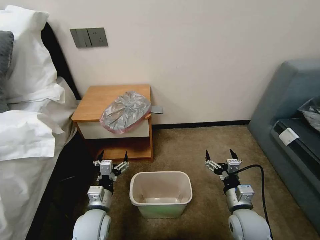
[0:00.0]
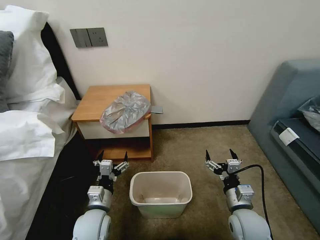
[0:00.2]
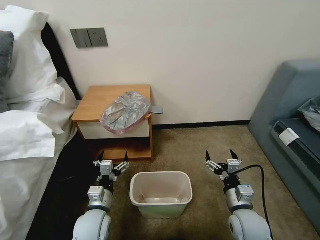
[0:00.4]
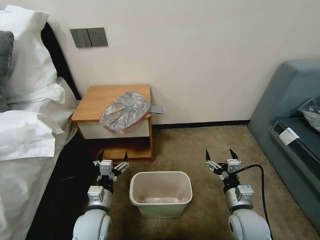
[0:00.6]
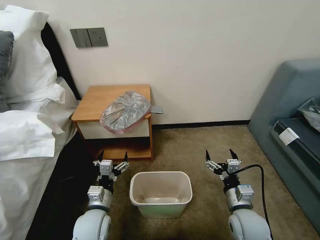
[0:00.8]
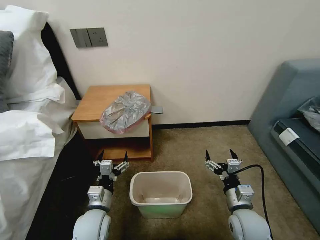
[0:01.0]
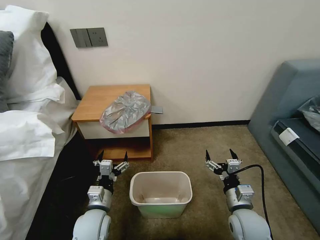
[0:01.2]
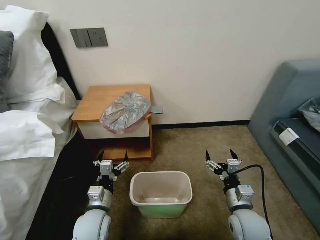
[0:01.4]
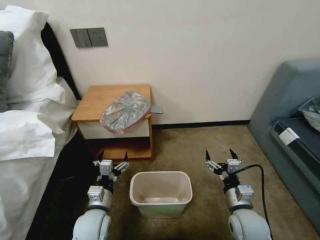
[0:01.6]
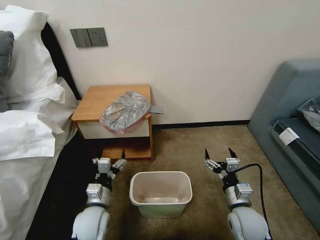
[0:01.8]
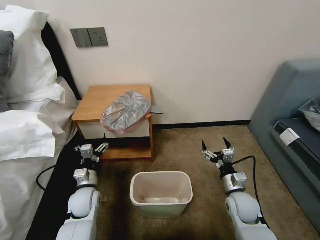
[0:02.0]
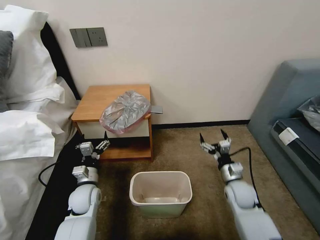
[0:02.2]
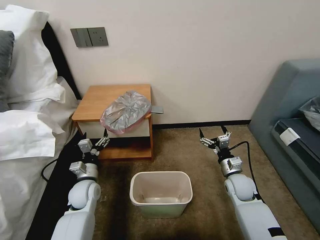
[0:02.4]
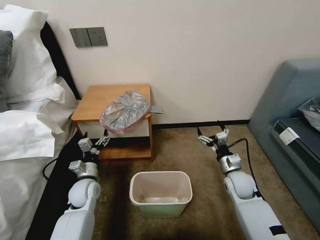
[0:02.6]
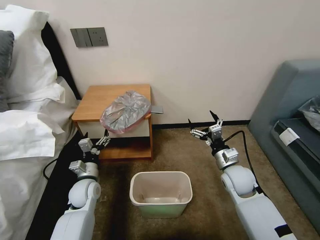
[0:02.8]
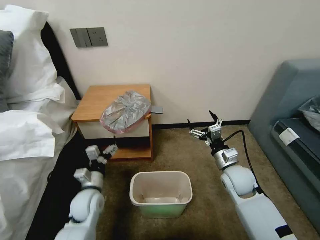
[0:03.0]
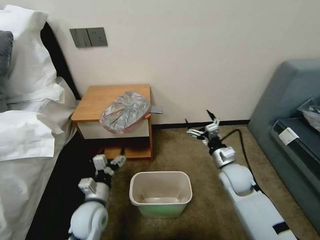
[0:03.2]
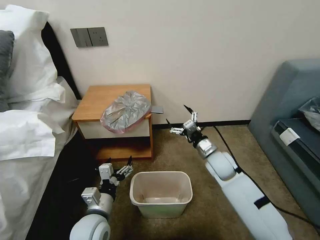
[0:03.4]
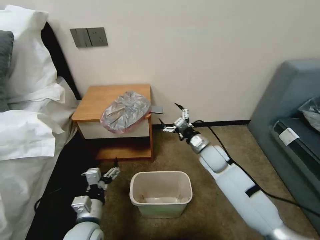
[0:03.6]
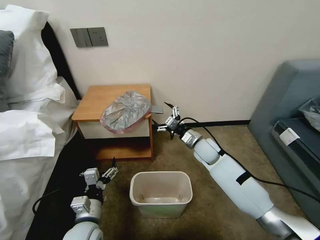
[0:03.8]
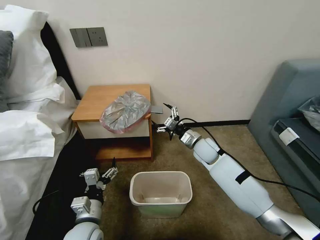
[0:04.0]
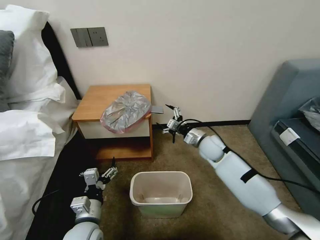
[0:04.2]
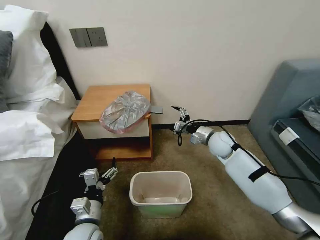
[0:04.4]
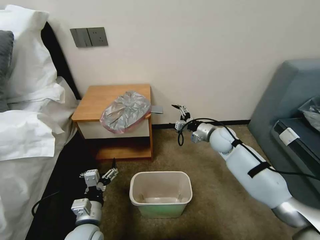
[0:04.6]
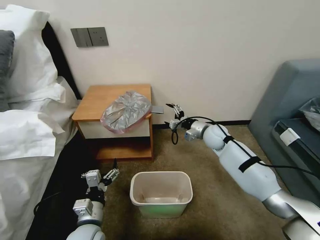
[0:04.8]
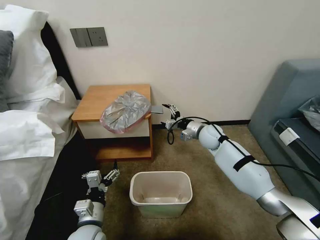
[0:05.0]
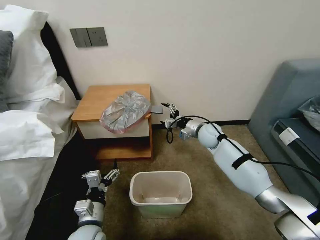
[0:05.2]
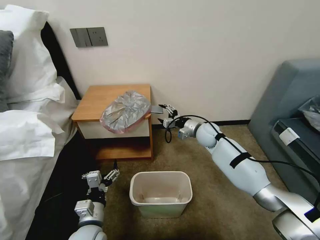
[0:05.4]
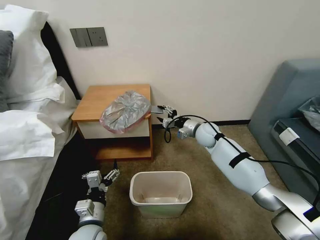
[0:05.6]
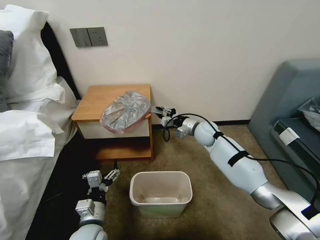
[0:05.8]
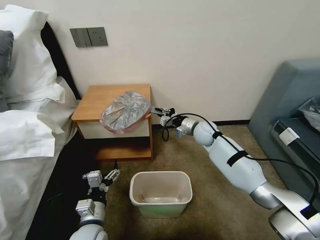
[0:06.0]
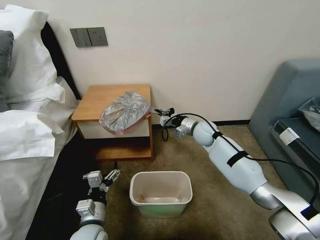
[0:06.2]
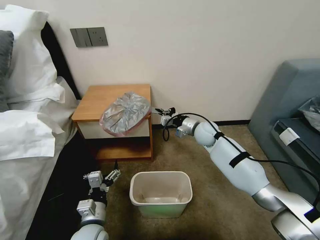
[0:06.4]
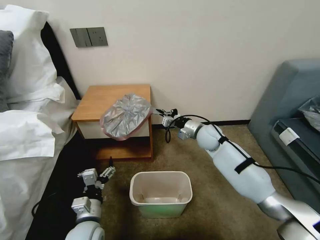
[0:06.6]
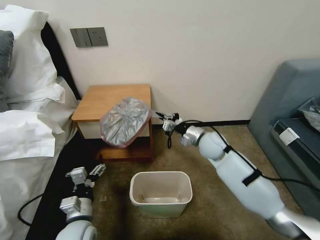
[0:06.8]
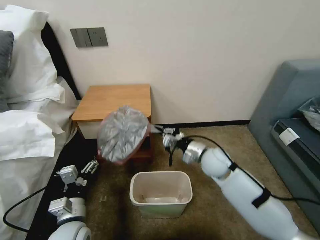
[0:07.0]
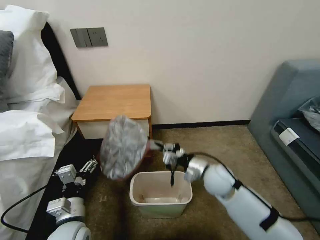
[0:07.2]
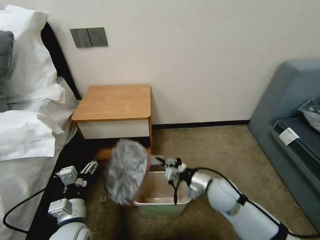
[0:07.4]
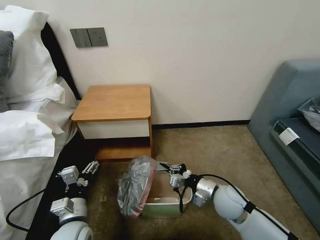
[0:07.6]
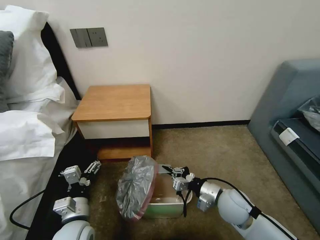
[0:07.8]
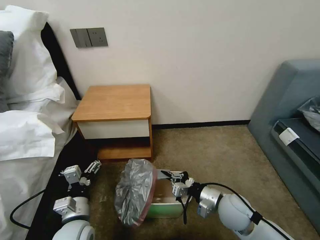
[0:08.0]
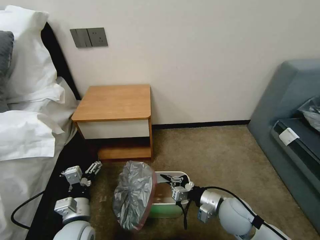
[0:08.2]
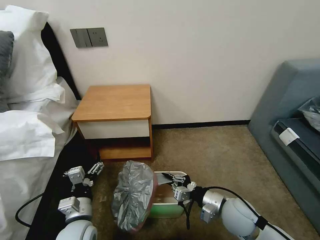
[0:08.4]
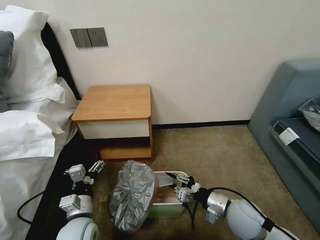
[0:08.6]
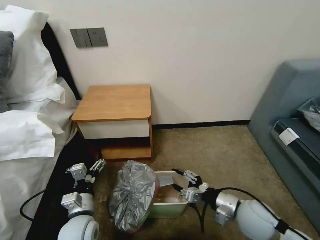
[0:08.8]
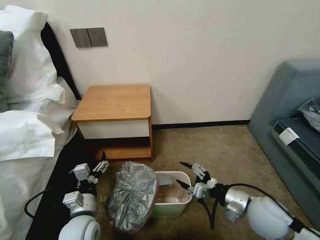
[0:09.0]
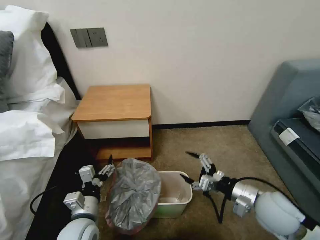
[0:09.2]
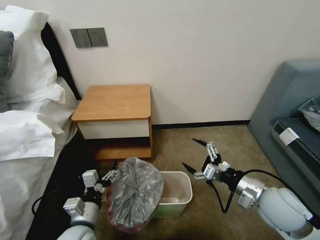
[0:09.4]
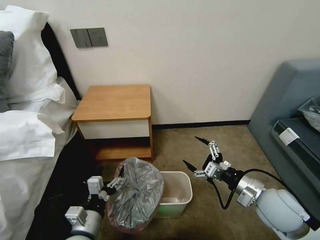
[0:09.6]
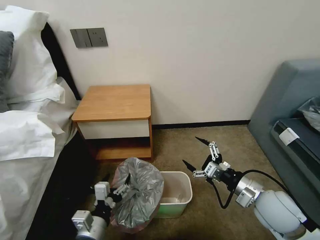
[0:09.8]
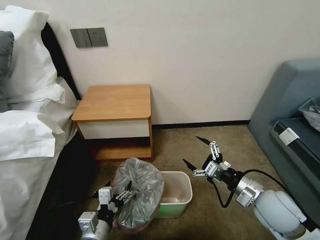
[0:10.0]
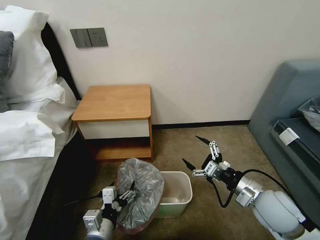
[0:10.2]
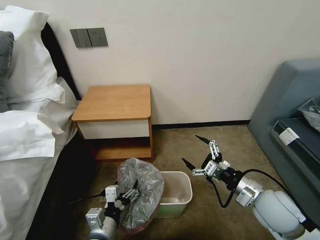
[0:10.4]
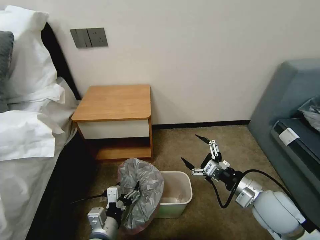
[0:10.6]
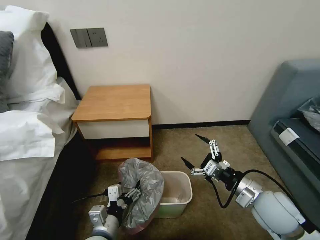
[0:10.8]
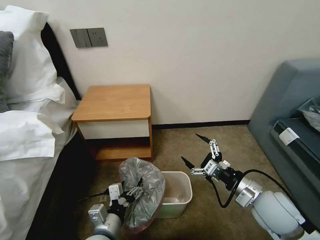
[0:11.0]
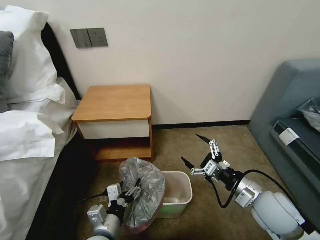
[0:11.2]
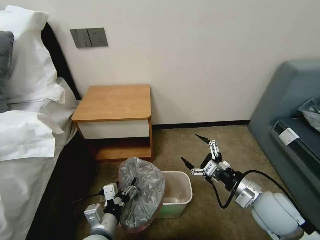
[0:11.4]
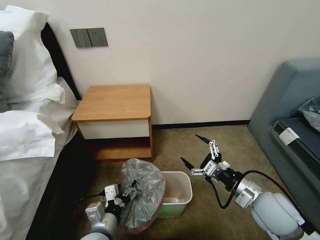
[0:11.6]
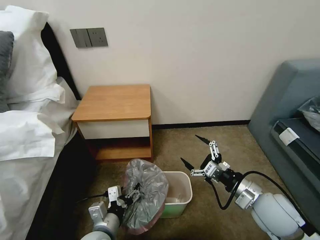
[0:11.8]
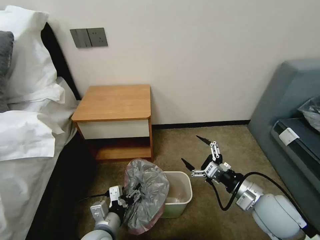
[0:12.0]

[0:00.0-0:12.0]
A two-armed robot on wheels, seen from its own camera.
Task of the whole recording: Pick up the garbage bag from the table and place it over the trash can.
0:01.6 to 0:03.0: The left gripper shifts some 5 cm forward. The right gripper travels forward by roughly 15 cm.
0:03.0 to 0:04.4: The right gripper is displaced forward by approximately 15 cm, while the left gripper shifts some 10 cm backward.
0:04.4 to 0:06.0: The right gripper moves forward and to the left, some 5 cm, and closes up.
0:06.0 to 0:07.6: The right gripper is displaced backward by roughly 25 cm.
0:07.6 to 0:09.0: The right gripper travels to the right and backward by approximately 10 cm, and opens its fingers.
0:09.0 to 0:10.4: The left gripper is displaced backward and to the right by some 10 cm.
0:10.4 to 0:12.0: The grippers make only small movements.

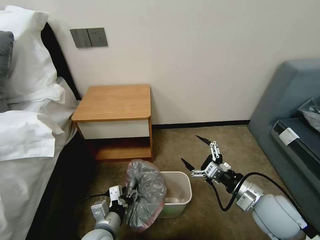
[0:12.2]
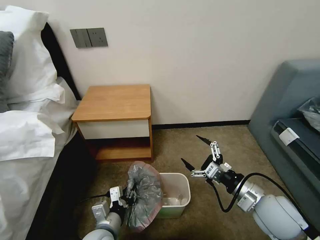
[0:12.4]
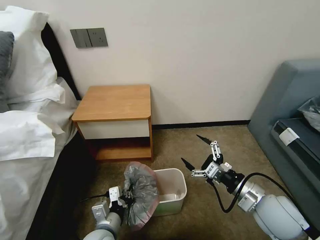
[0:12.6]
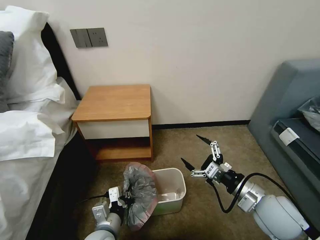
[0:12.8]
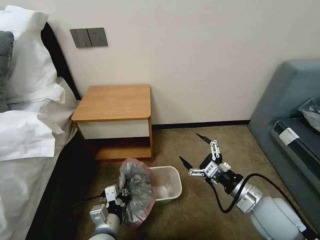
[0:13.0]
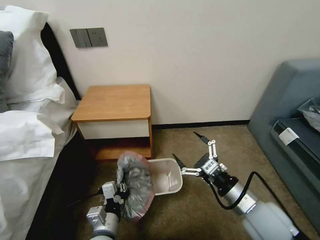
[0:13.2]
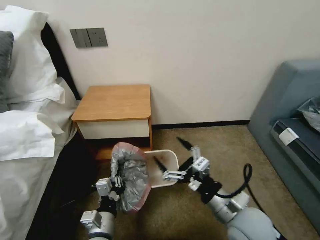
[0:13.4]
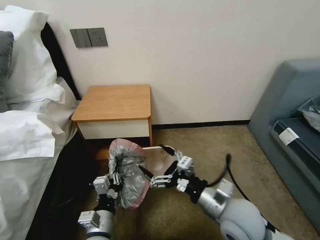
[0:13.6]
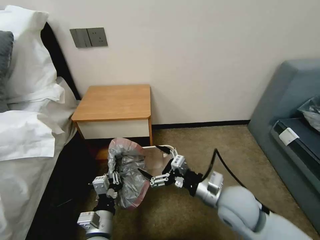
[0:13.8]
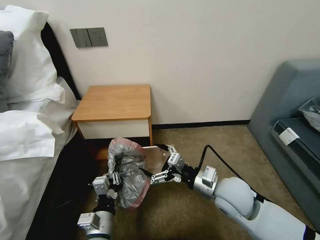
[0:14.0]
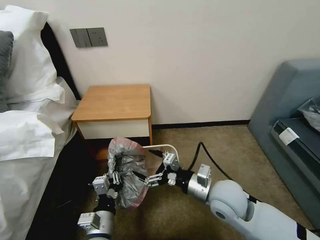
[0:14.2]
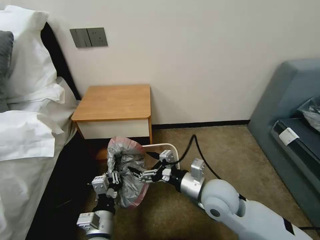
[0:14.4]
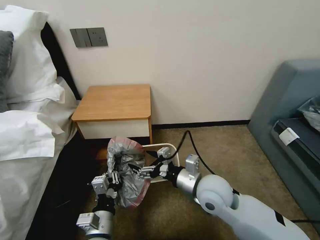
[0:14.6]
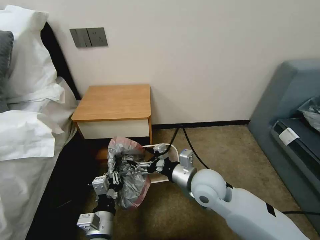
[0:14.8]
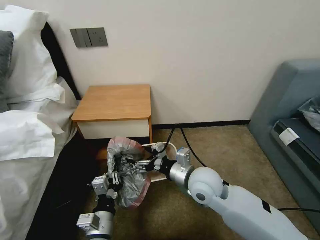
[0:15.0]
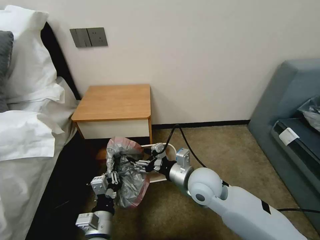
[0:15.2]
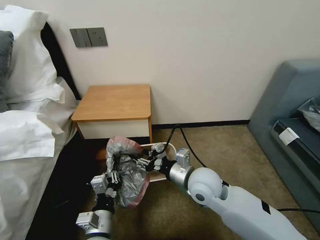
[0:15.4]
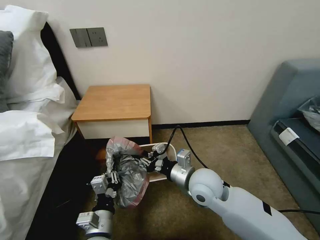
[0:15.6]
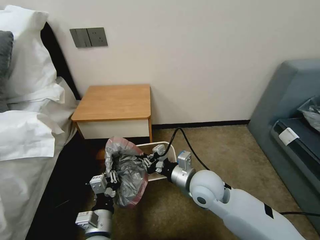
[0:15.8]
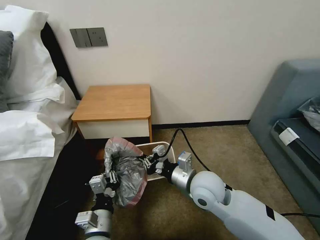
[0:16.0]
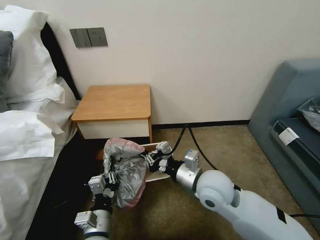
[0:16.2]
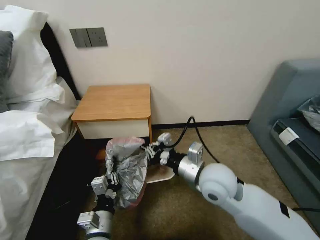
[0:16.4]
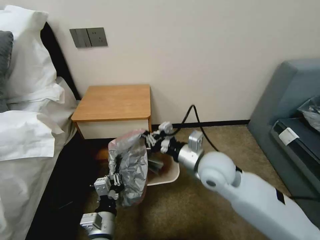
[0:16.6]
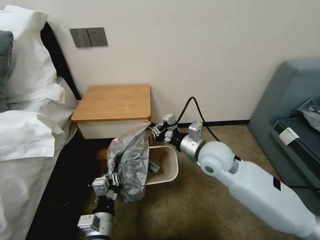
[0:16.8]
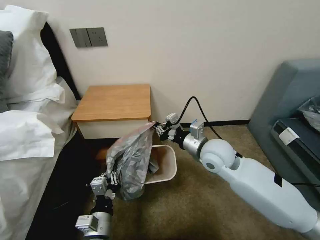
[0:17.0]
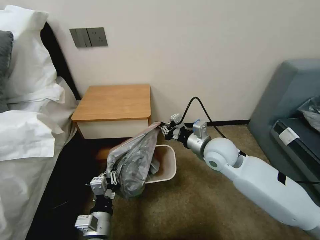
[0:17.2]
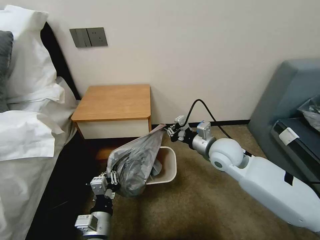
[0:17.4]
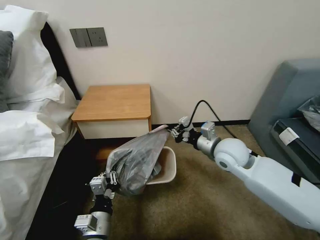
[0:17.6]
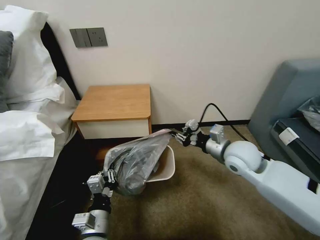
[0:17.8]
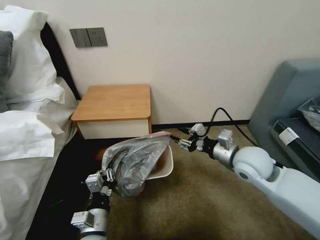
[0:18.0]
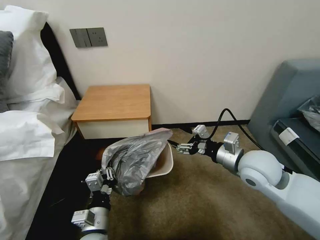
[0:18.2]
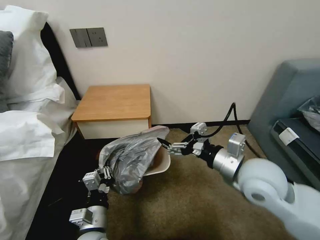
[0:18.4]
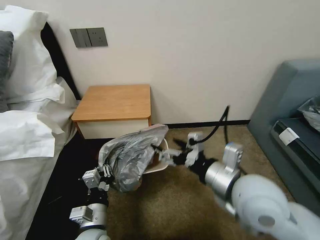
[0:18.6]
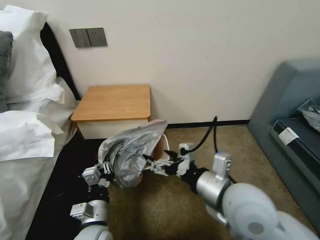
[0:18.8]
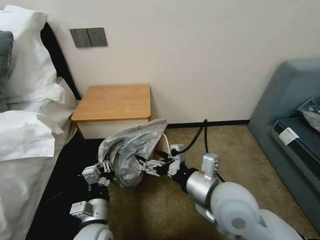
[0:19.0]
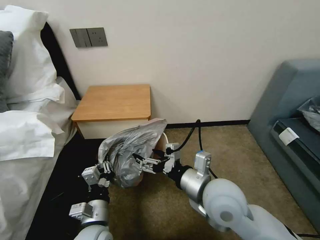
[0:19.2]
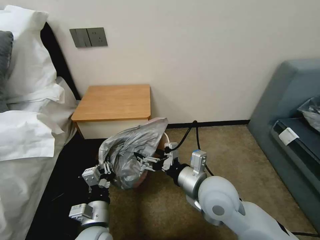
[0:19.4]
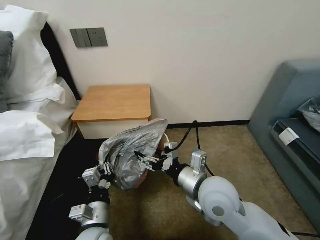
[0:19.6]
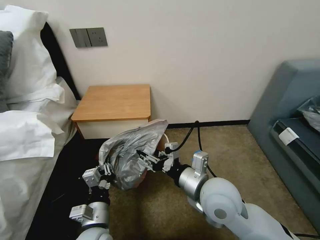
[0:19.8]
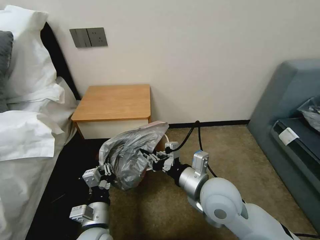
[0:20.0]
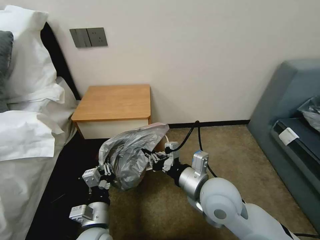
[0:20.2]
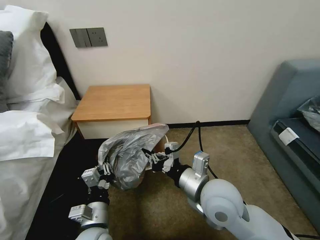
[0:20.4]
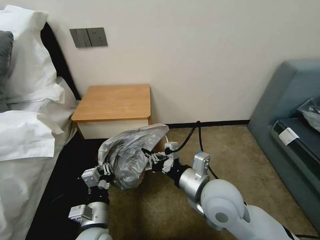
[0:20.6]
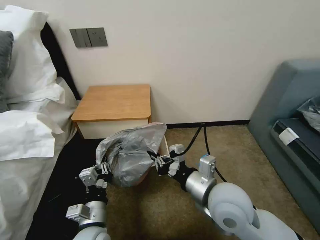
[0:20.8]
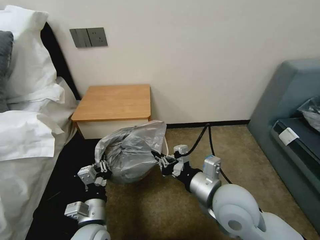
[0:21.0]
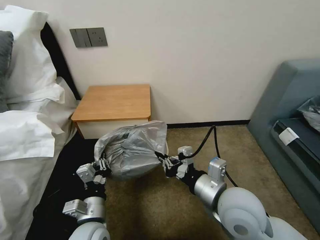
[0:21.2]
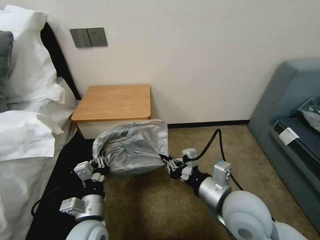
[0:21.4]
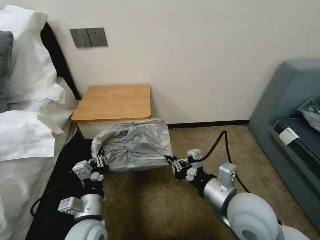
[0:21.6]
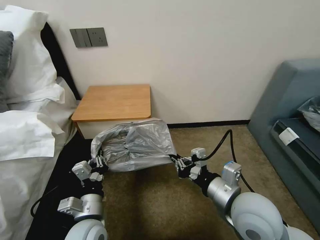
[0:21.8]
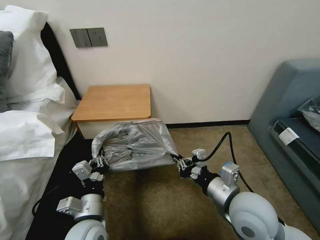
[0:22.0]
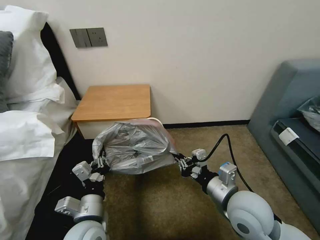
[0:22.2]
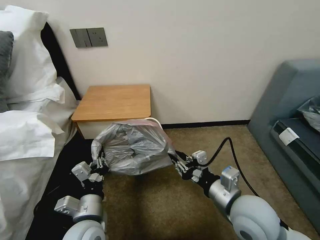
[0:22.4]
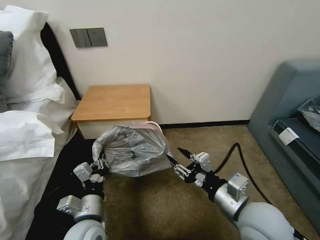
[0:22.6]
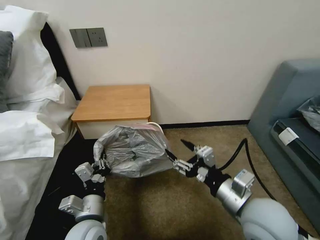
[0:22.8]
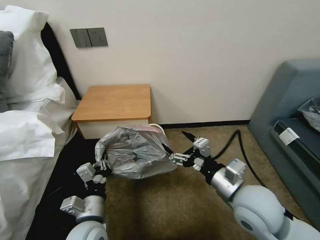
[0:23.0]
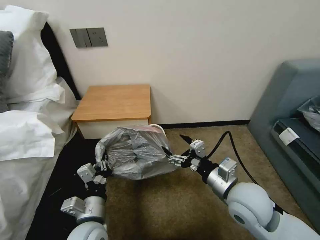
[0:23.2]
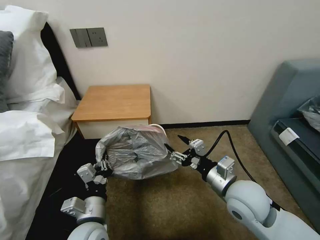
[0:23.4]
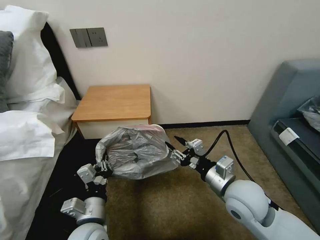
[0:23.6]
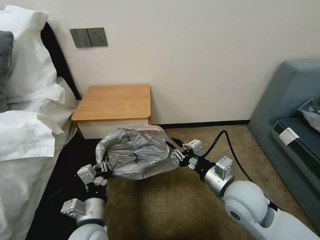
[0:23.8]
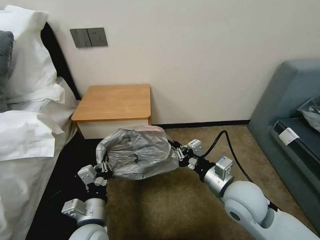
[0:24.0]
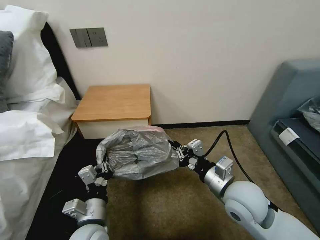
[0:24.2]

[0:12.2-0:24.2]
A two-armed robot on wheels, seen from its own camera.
Task of the whole recording: Pick up the garbage bag from the table and place it over the trash can.
0:12.2 to 0:13.8: The left gripper closes. Meanwhile the right gripper is displaced to the left by about 10 cm.
0:13.8 to 0:15.2: The right gripper goes about 10 cm to the left and forward.
0:15.2 to 0:16.6: The right gripper is displaced upward by roughly 5 cm, and closes.
0:16.6 to 0:18.2: The right gripper moves to the right, some 10 cm, and opens.
0:18.2 to 0:19.8: The right gripper shifts approximately 15 cm to the left and backward.
0:19.8 to 0:21.2: The right gripper closes.
0:21.2 to 0:22.6: The right gripper ends up roughly 5 cm from where it was, and opens.
0:22.6 to 0:24.2: The right gripper goes roughly 5 cm forward, and closes up.
